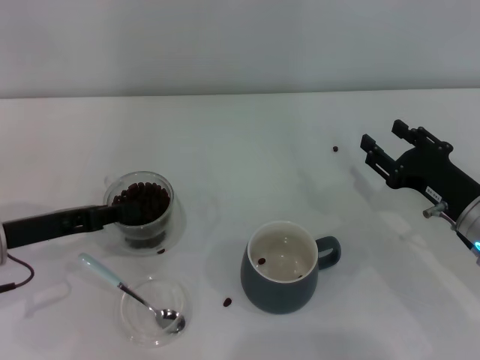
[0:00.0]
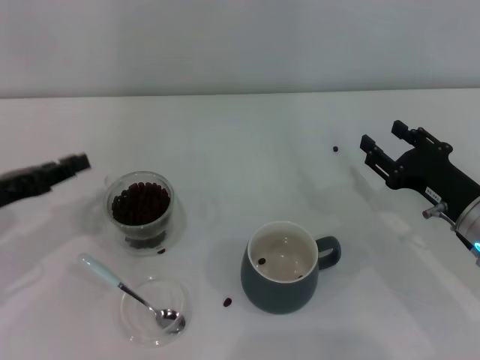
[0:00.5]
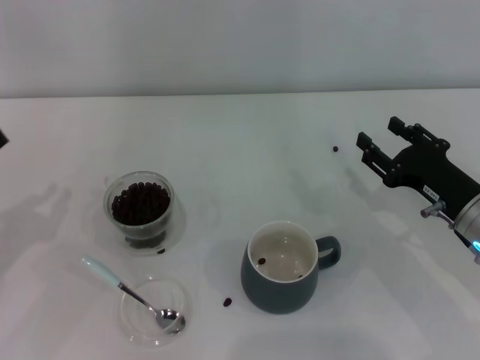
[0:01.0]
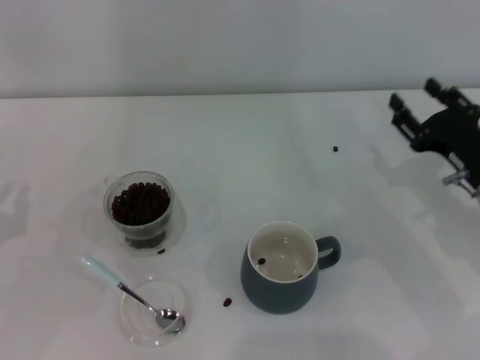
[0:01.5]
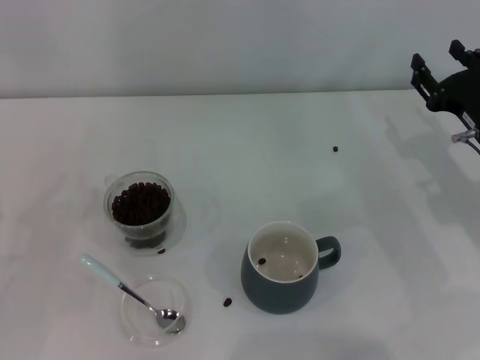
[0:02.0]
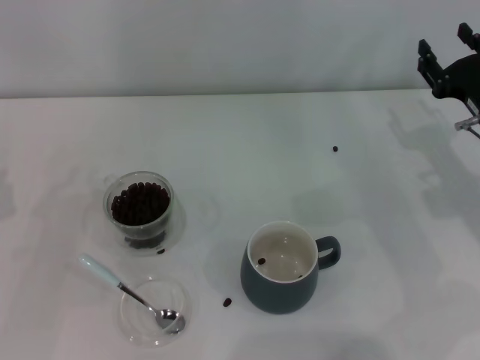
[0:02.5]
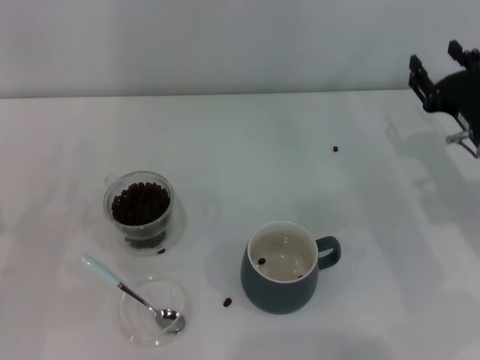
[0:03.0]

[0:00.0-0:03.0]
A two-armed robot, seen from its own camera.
Task of the whole recording: Use a blue spoon to take out the coffee beans from the glass and pour them into the gray cup.
0:00.0 to 0:01.5: The left gripper travels to the left and backward by some 10 cm.
0:01.5 to 0:03.0: The grippers make only small movements.
